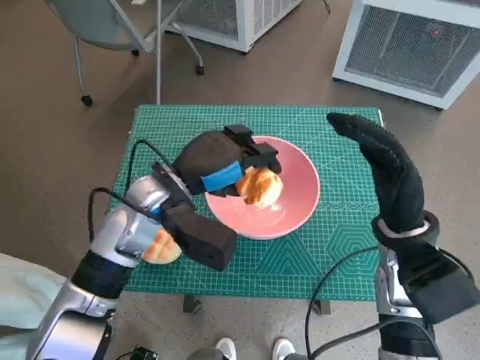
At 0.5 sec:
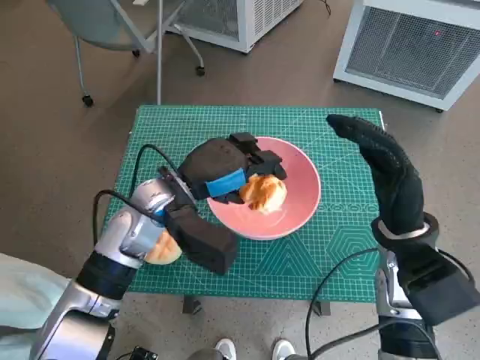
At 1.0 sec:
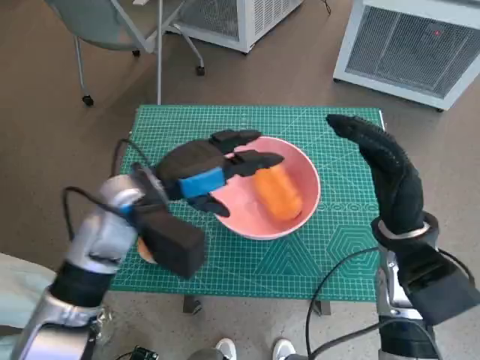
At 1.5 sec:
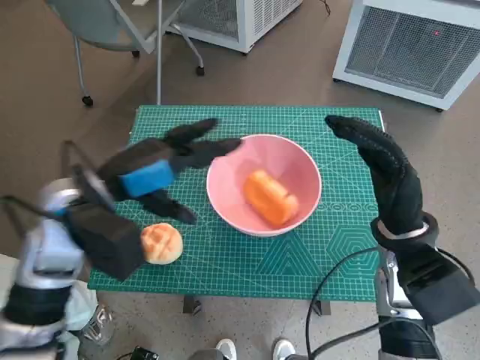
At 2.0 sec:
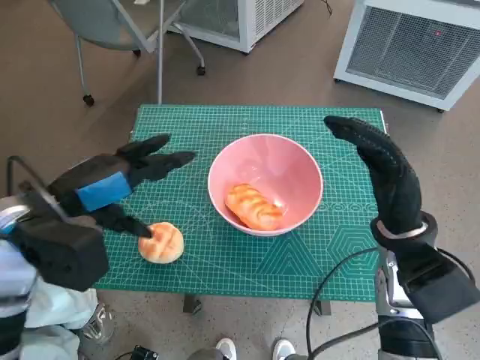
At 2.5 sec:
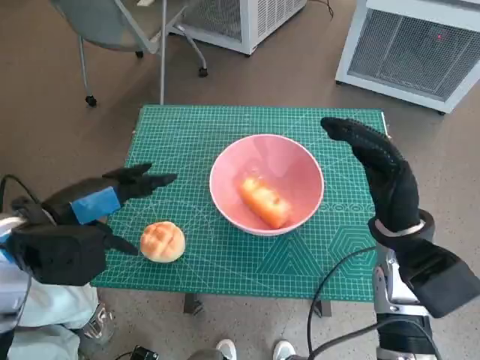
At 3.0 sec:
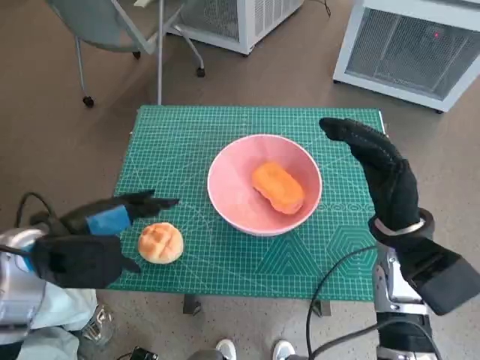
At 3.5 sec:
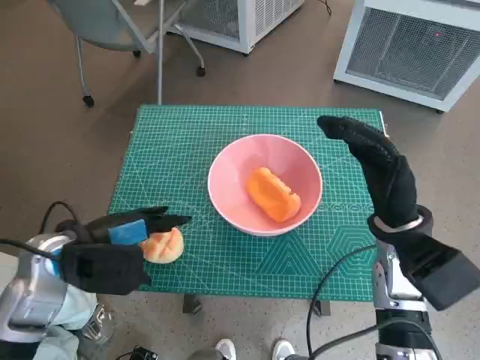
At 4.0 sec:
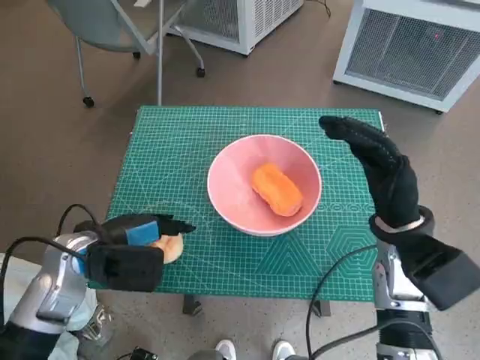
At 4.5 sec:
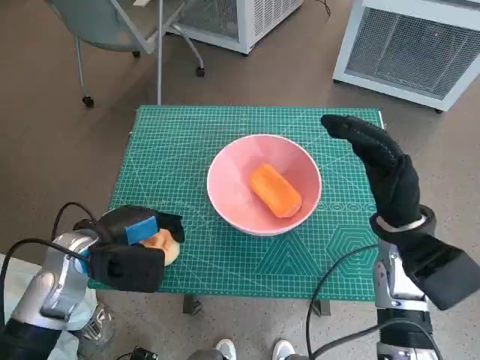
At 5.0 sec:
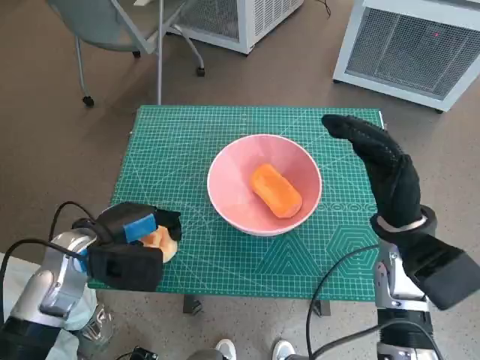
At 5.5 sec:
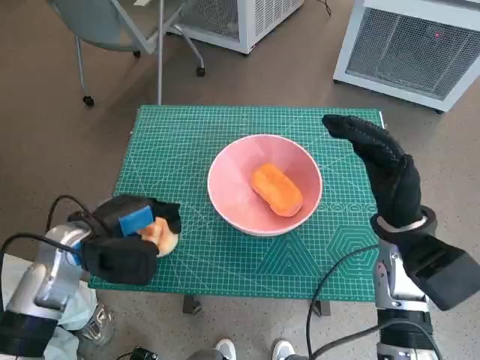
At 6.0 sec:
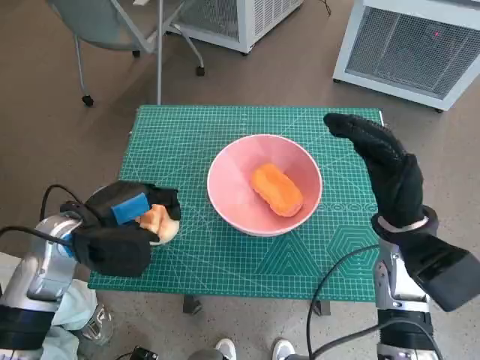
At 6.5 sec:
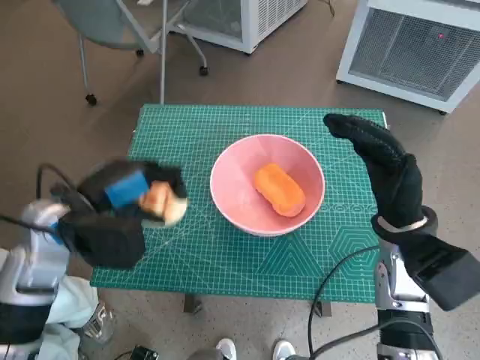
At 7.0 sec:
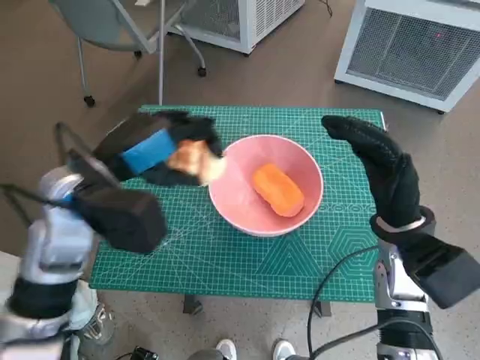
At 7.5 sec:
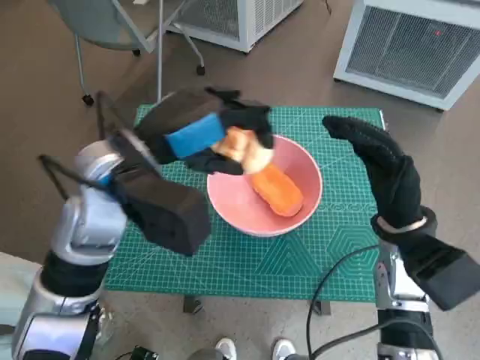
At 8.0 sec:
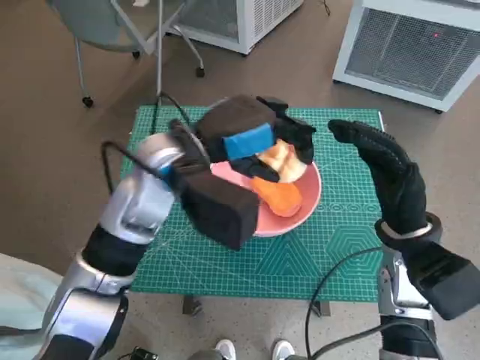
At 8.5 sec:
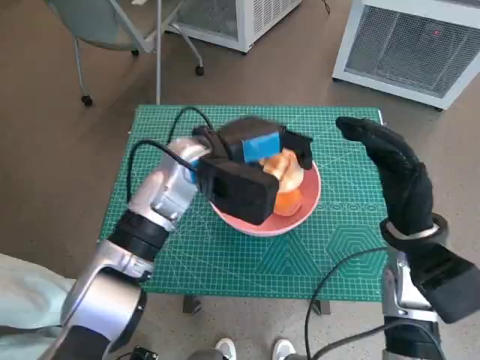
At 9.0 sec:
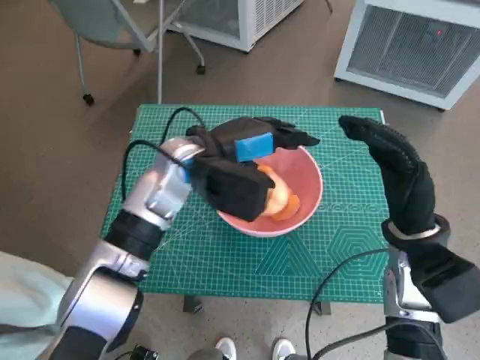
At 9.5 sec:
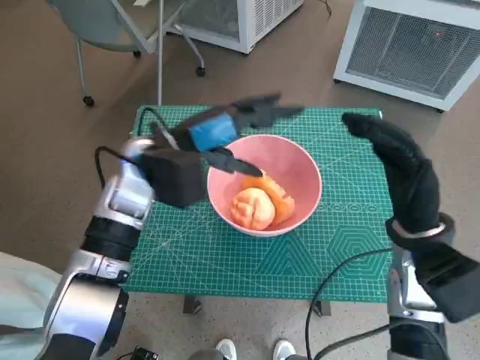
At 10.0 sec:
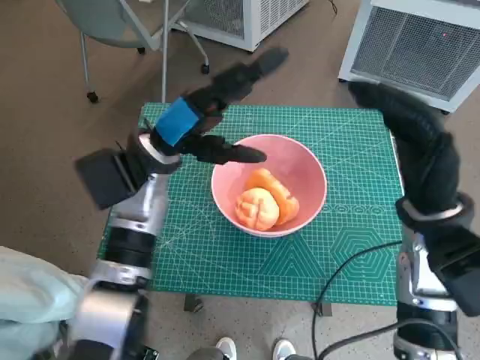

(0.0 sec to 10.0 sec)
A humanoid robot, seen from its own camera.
Task of the whole recording: Push the bowl into the center of the table and put the bread into the bowl.
Step, 1.0 sec - 4.0 sec: Grasp the round bread with left hand.
Step, 4.5 sec - 8.5 sec: Place the round bread in pink bowl with left hand.
0.0 sec - 2.0 sec: The left hand shifts approximately 15 cm to the left and backward.
2.0 sec - 4.0 sec: The left hand is displaced downward by approximately 10 cm.
4.0 sec - 6.0 sec: The hands move only a little.
6.0 sec - 8.0 sec: The left hand heads to the right and upward, covering roughly 20 cm.
8.0 sec - 10.0 sec: The left hand shifts by approximately 5 cm.

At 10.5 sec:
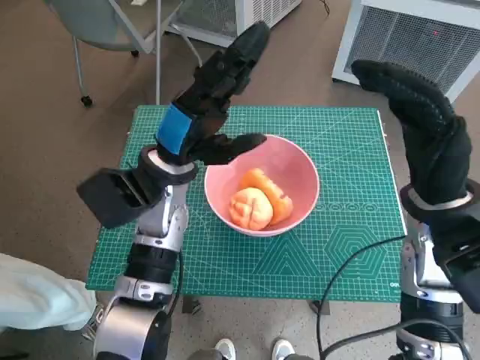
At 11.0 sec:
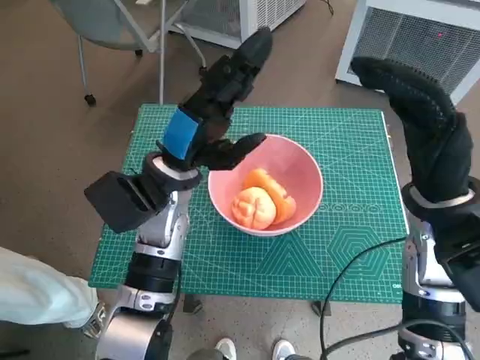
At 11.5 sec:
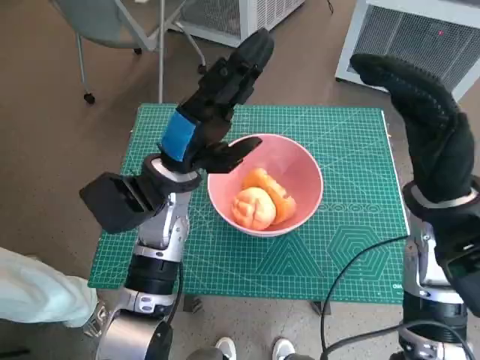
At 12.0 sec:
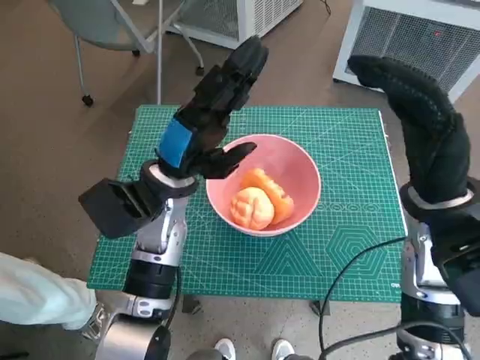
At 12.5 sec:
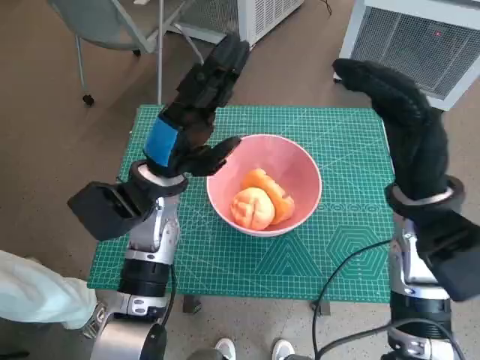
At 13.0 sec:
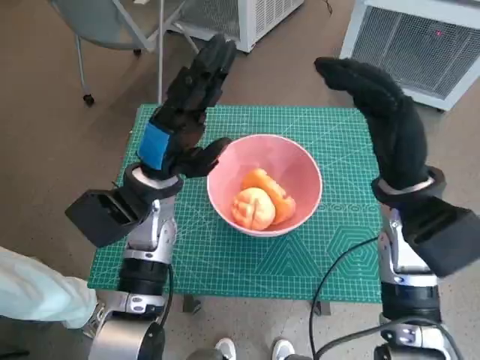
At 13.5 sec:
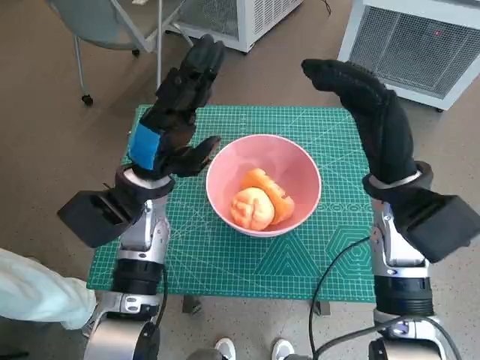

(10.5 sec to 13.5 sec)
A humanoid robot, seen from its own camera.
Task of the whole recording: Push the bowl into the center of the table and put the bread into the bowl.
10.5 sec - 12.0 sec: The hands stay close to where they were, moving slightly.

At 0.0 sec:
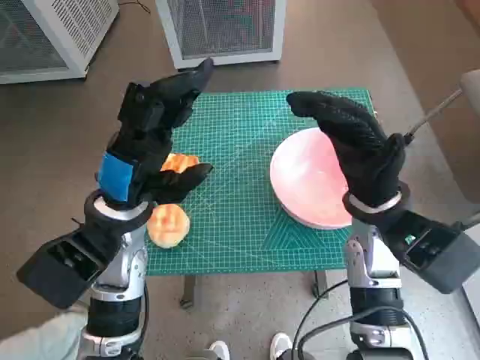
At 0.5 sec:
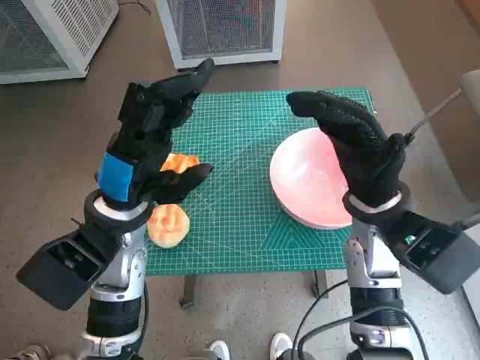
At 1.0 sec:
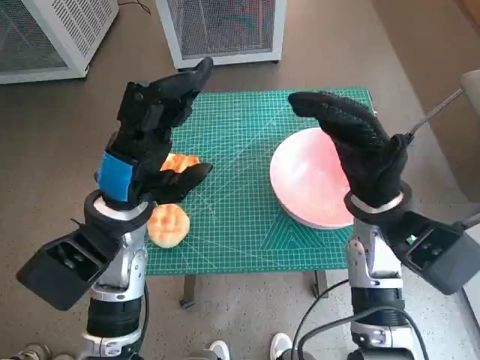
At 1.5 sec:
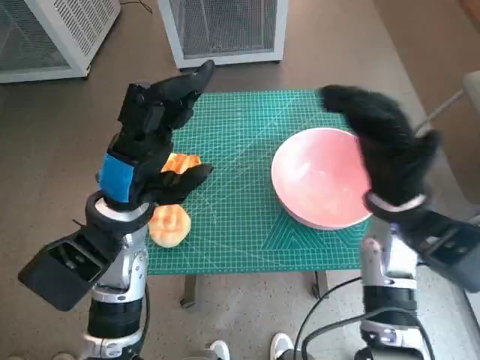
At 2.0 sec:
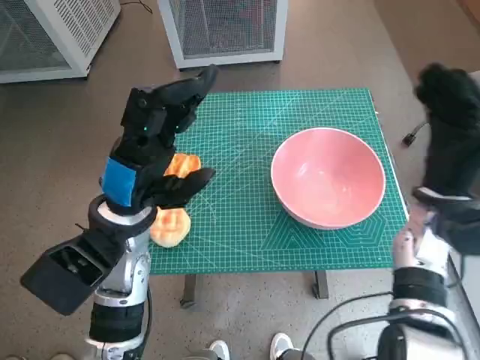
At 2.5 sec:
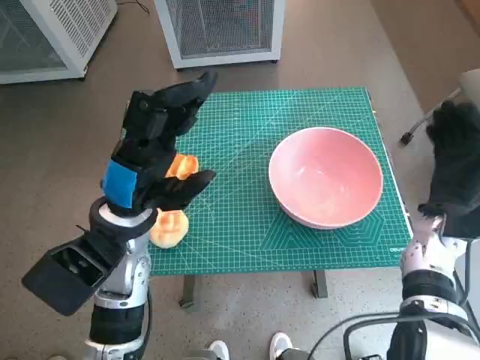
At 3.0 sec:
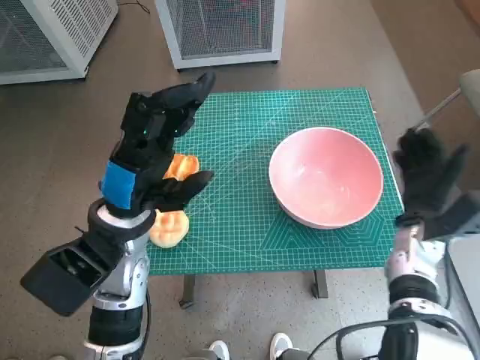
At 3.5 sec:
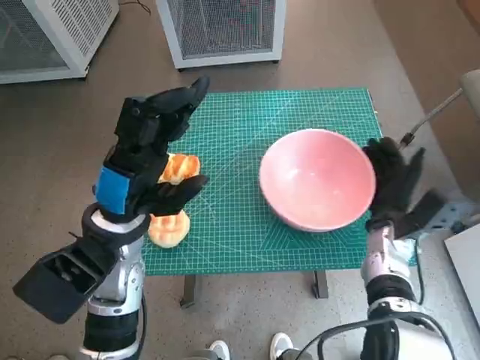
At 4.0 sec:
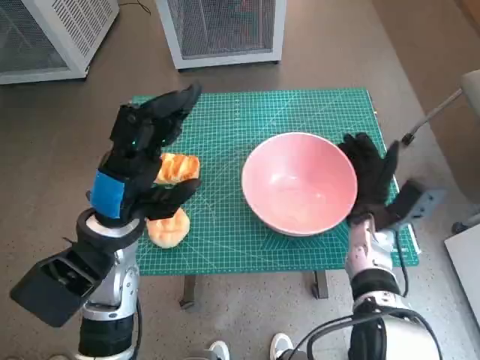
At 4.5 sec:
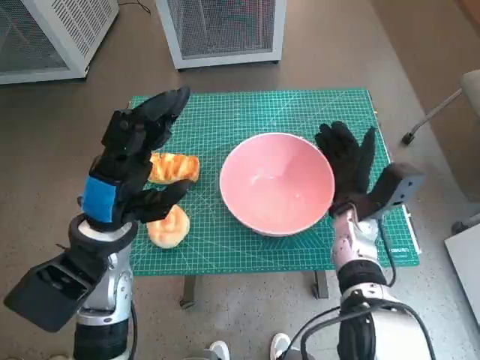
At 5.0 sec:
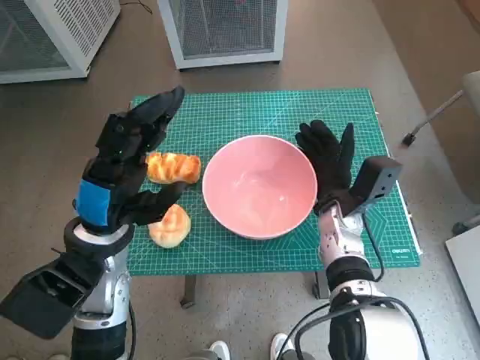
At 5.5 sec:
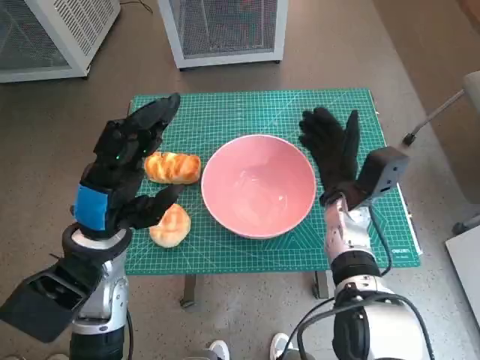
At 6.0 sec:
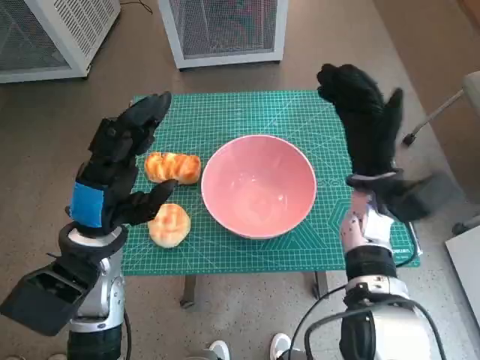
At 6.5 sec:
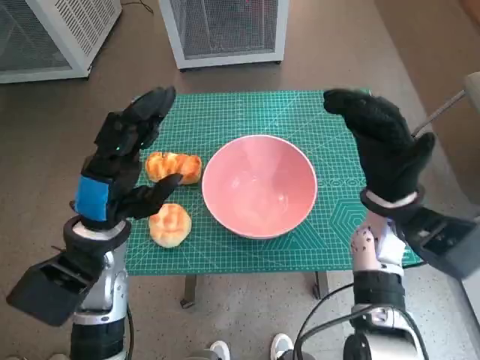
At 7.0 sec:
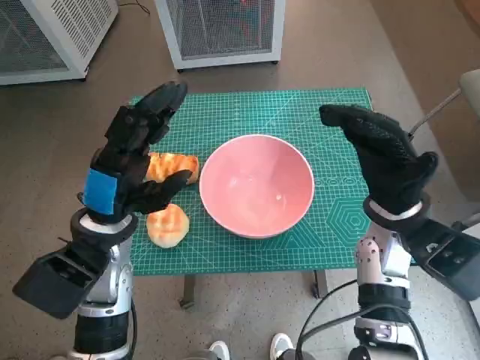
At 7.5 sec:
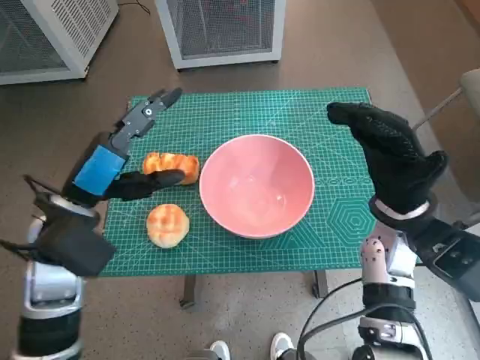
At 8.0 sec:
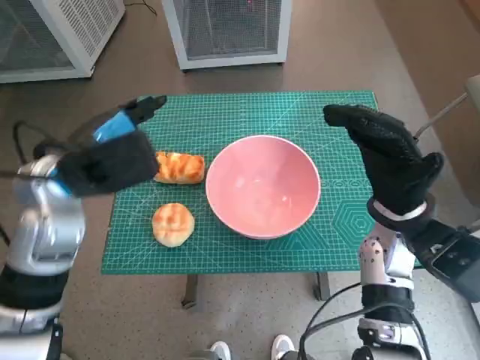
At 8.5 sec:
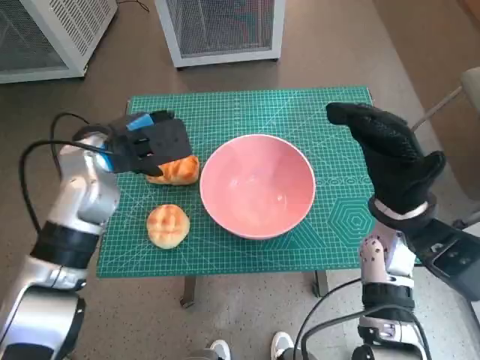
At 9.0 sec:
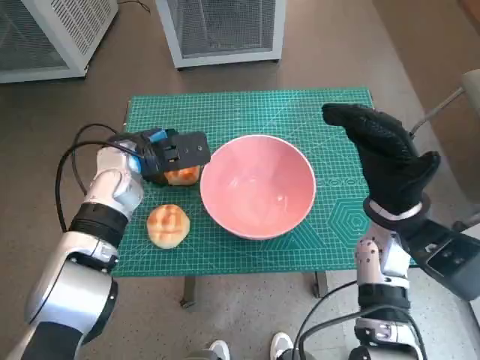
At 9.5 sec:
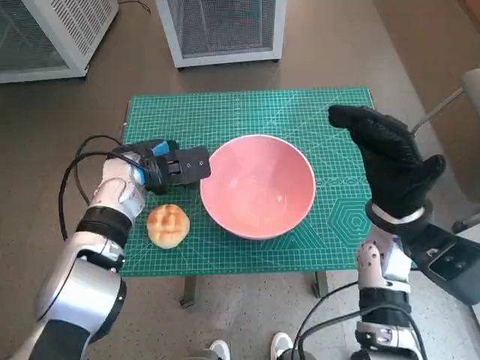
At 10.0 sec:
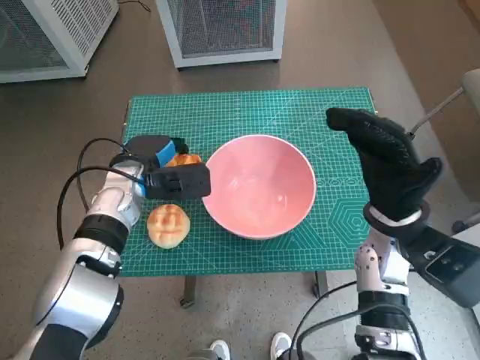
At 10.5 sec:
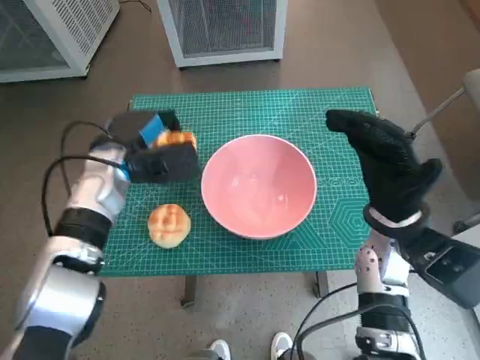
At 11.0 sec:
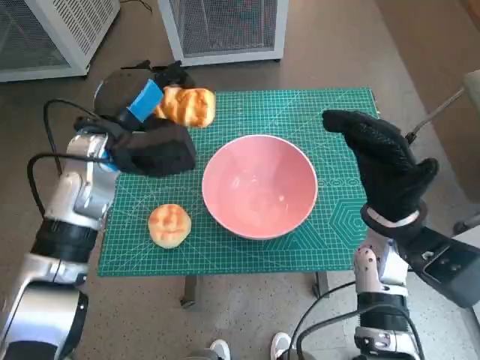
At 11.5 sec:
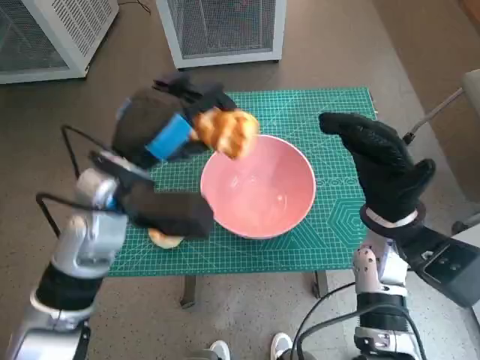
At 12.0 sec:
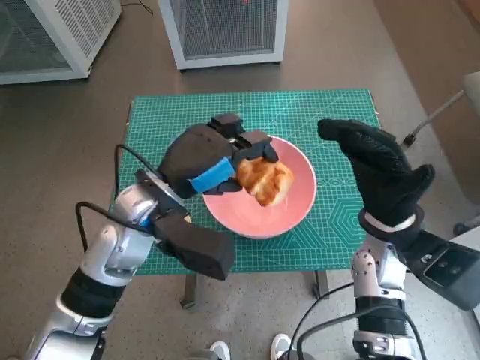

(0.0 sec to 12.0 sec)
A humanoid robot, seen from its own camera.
Task of the whole recording: Push the bowl into the center of the table and put the bread into the bowl.
Step, 0.0 sec - 5.5 sec: Move the pink bowl to the center of table with right hand.
Step, 6.0 sec - 9.5 sec: Grasp the long bread with left hand.
2.0 sec - 4.0 sec: The right hand shifts approximately 10 cm downward.
4.0 sec - 6.0 sec: The right hand is displaced upward by roughly 10 cm.
6.0 sec - 8.0 sec: The left hand travels upward by roughly 5 cm; the right hand moves approximately 5 cm.
8.0 sec - 10.0 sec: The left hand goes roughly 15 cm downward and forward.
10.0 sec - 12.0 sec: The left hand heads backward, upward and to the right, covering some 10 cm.
